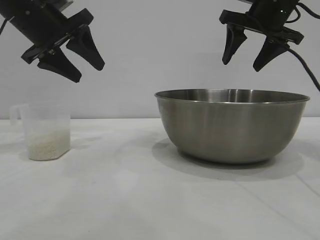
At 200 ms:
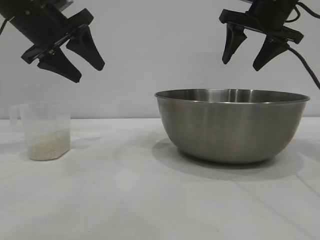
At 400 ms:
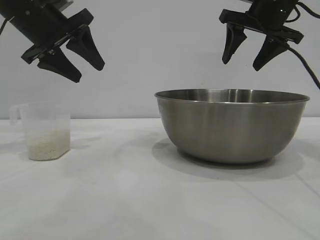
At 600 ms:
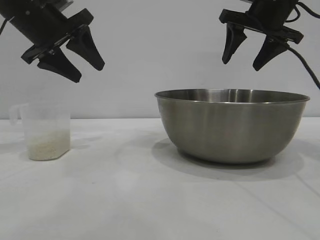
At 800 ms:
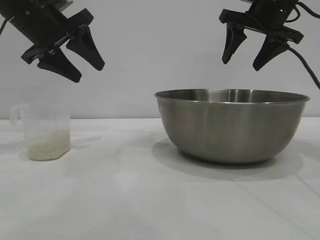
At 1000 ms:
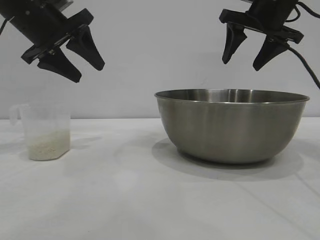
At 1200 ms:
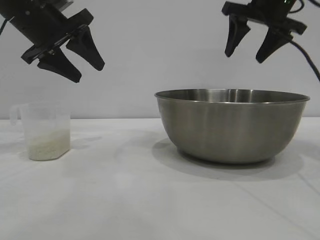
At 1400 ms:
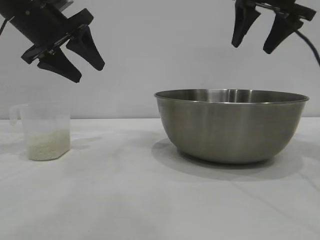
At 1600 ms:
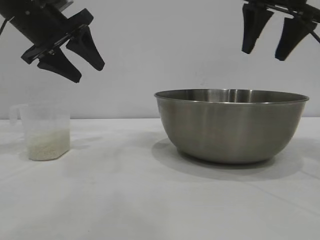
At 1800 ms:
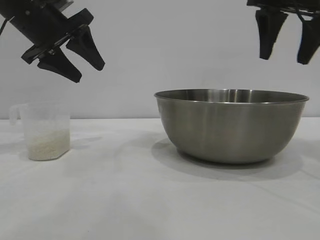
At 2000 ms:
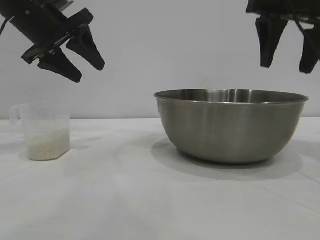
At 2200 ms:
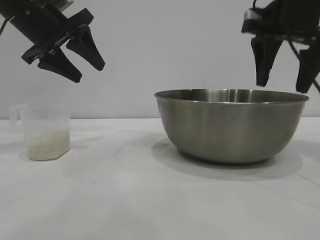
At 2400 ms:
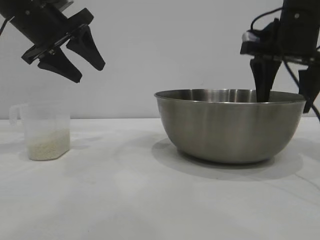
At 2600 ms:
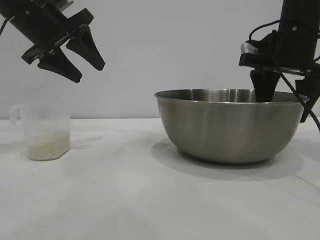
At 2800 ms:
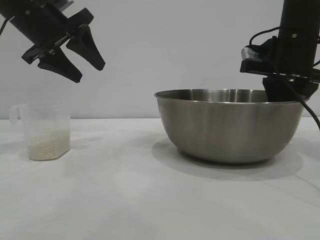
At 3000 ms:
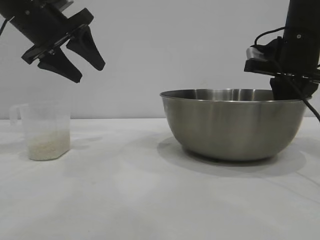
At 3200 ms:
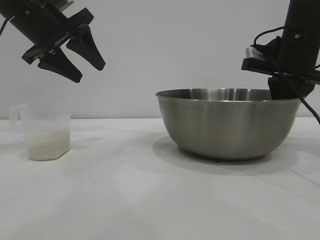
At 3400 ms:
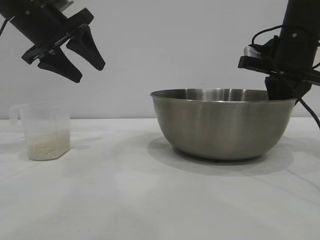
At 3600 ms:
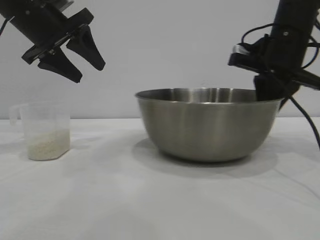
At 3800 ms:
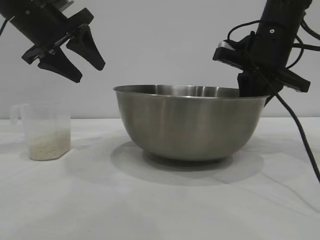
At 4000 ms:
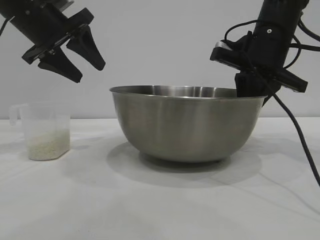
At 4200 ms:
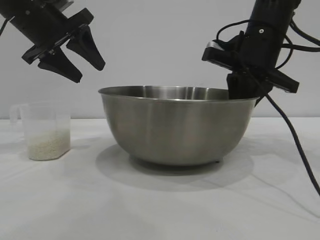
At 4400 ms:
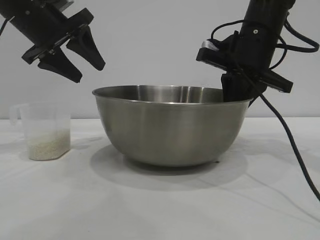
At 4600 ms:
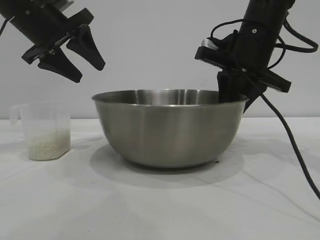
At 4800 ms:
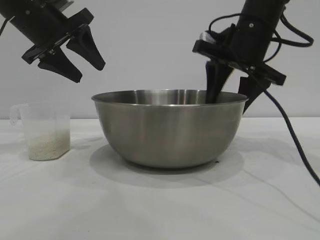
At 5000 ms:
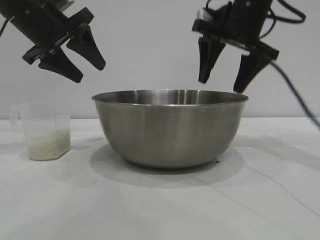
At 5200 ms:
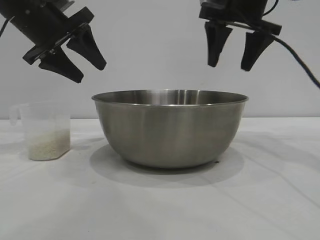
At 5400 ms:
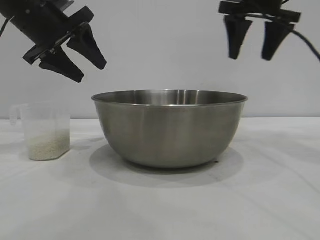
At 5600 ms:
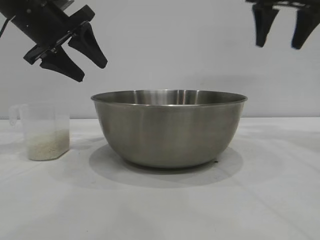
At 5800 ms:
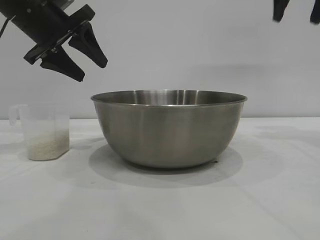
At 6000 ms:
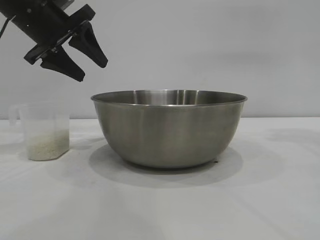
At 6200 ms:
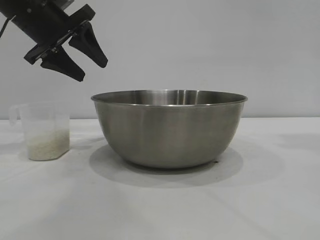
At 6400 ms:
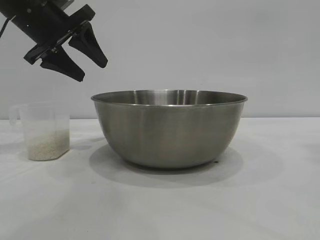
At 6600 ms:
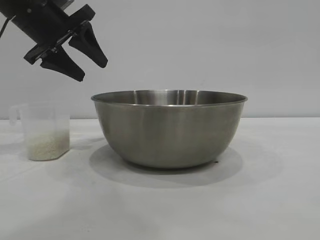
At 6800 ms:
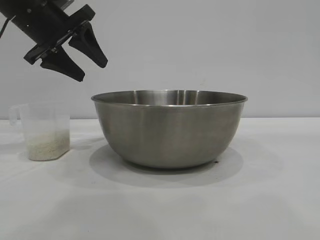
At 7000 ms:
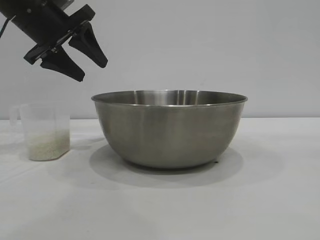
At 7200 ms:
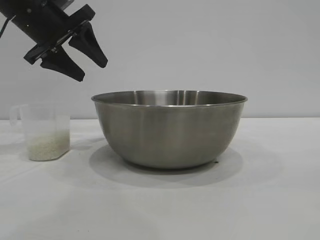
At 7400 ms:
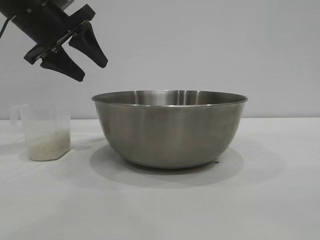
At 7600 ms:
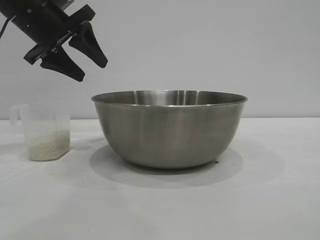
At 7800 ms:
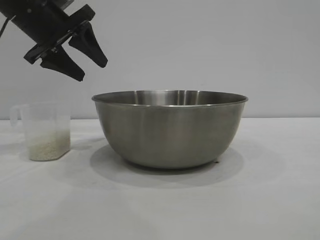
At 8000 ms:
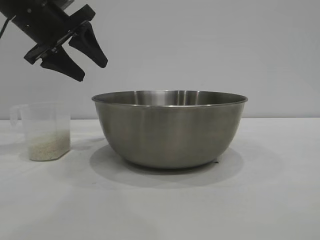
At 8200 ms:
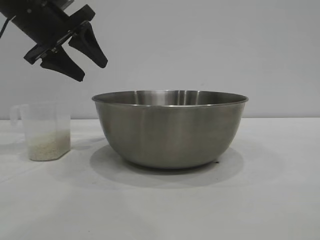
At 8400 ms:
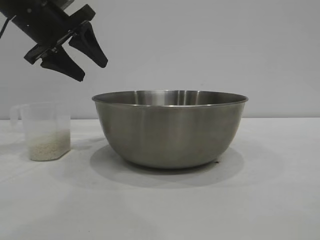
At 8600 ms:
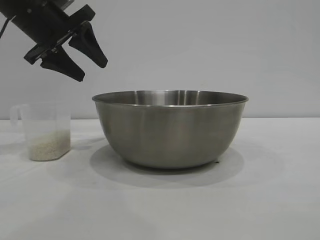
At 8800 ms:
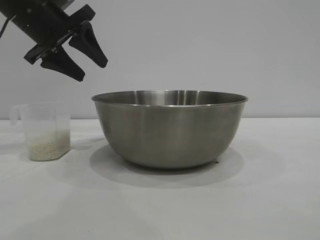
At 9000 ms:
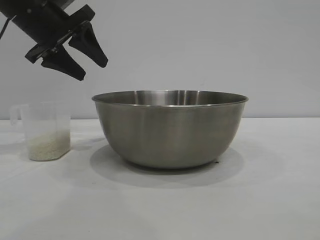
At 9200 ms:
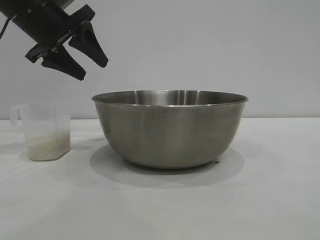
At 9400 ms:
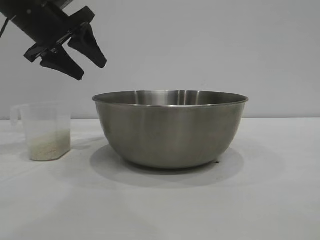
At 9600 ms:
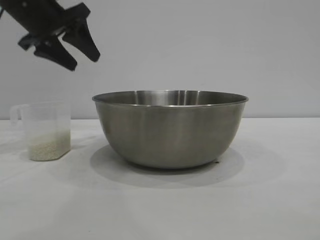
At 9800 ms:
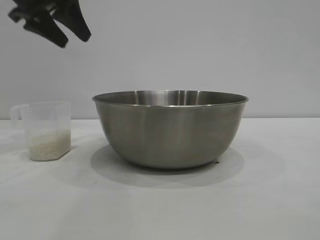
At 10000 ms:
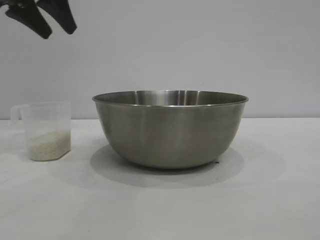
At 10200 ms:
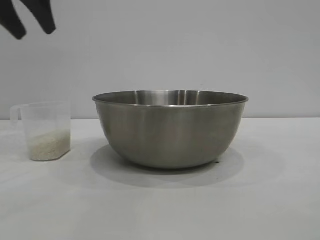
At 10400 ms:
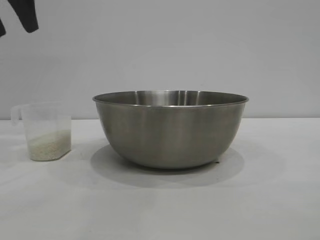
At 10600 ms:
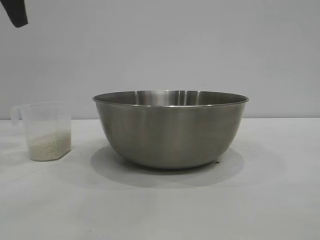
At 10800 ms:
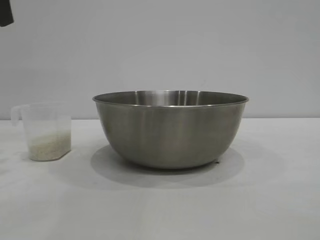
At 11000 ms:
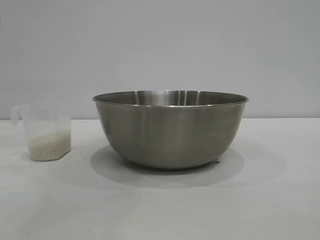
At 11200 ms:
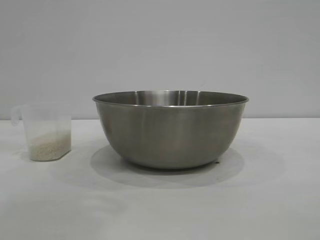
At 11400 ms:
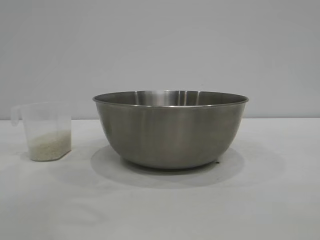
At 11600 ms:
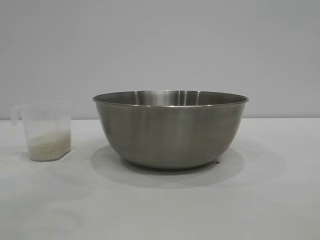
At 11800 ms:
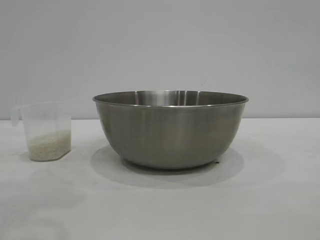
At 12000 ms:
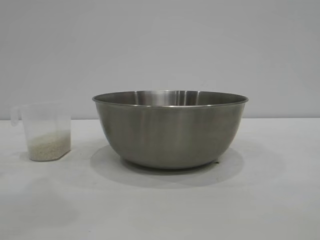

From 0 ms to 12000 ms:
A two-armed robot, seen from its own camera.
Task of the whole recording: the right gripper grasp the rice container and place it in the center of the table, the left gripper grasp the rice scoop and pour the rice into the rice container.
Step, from 0 ms to 4800 ms: Move the bowl to the center of view with the right gripper.

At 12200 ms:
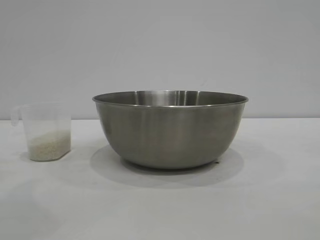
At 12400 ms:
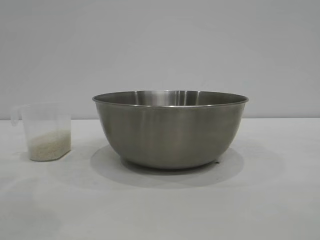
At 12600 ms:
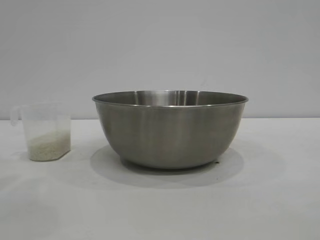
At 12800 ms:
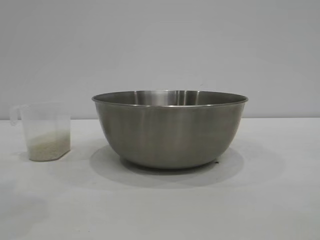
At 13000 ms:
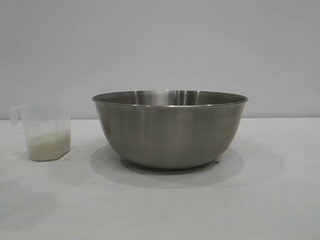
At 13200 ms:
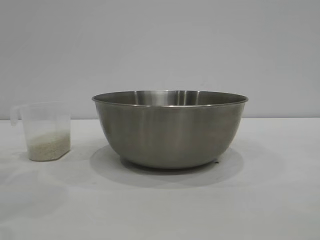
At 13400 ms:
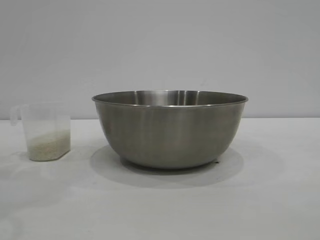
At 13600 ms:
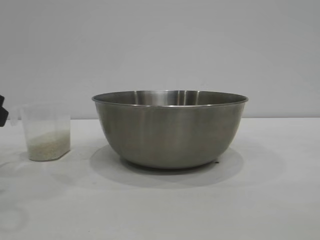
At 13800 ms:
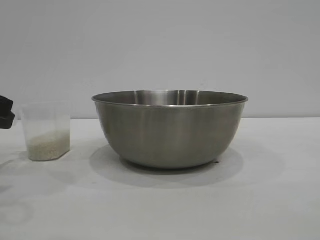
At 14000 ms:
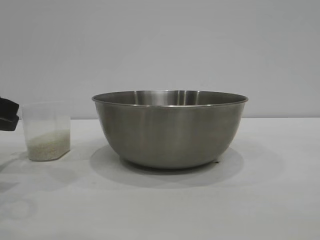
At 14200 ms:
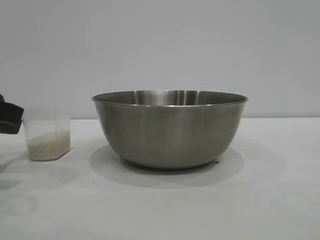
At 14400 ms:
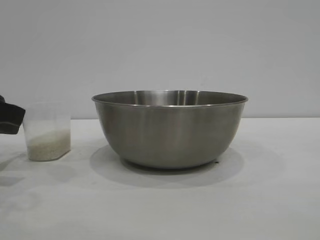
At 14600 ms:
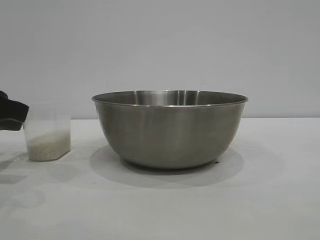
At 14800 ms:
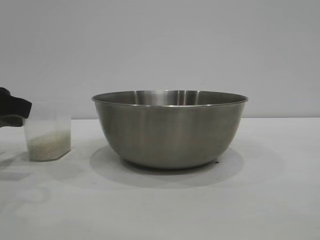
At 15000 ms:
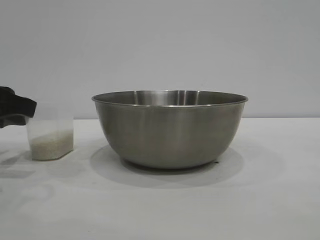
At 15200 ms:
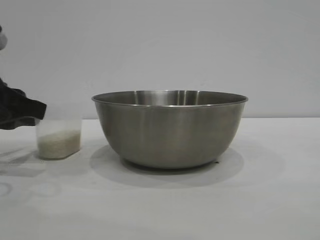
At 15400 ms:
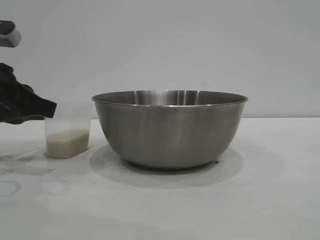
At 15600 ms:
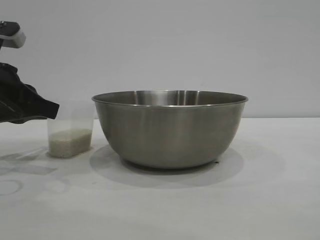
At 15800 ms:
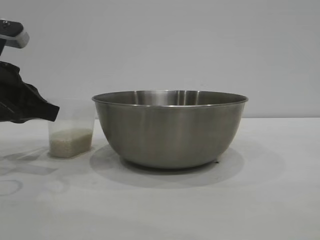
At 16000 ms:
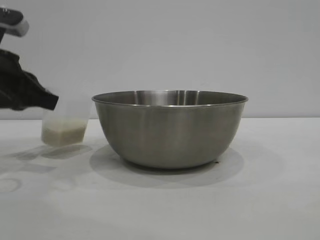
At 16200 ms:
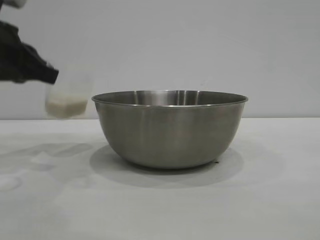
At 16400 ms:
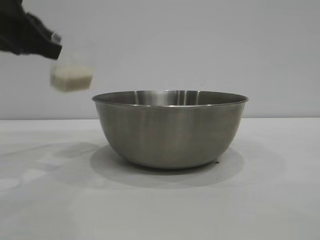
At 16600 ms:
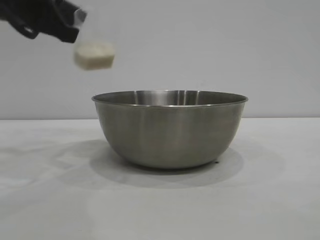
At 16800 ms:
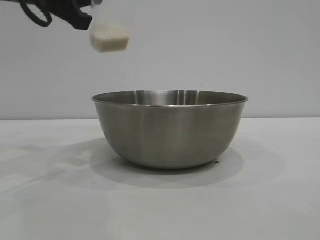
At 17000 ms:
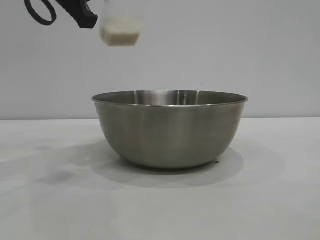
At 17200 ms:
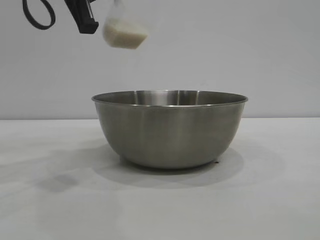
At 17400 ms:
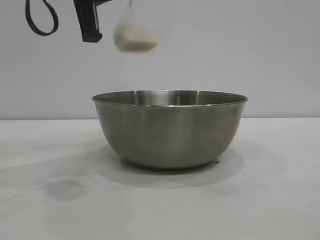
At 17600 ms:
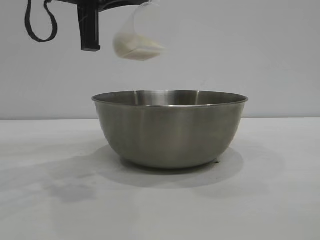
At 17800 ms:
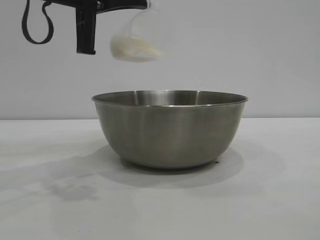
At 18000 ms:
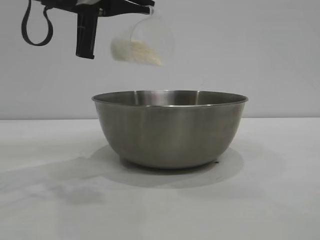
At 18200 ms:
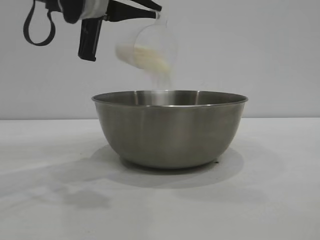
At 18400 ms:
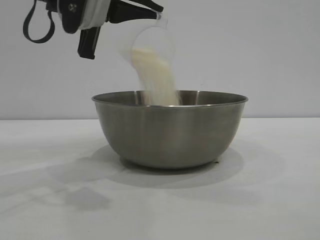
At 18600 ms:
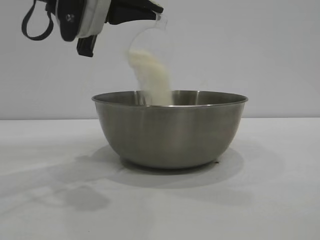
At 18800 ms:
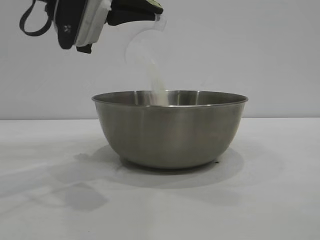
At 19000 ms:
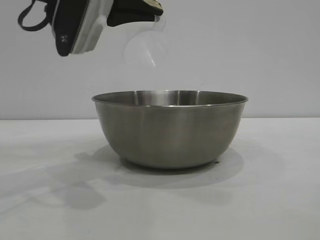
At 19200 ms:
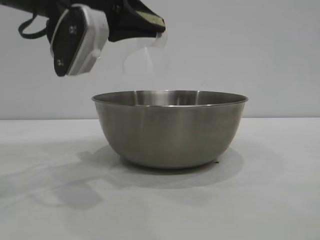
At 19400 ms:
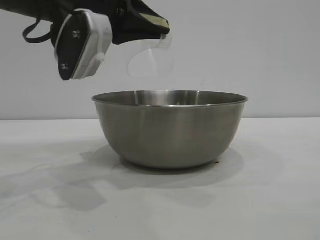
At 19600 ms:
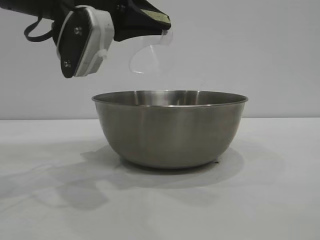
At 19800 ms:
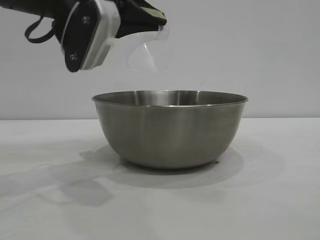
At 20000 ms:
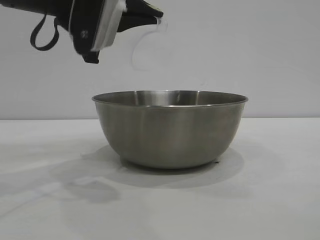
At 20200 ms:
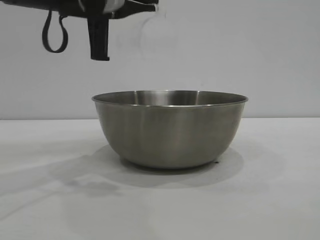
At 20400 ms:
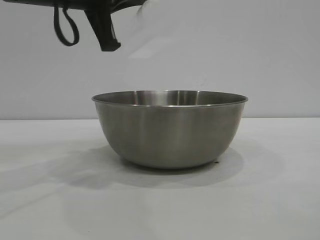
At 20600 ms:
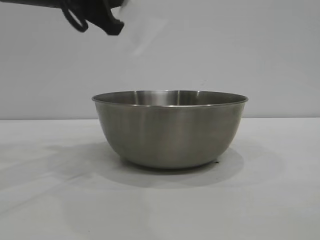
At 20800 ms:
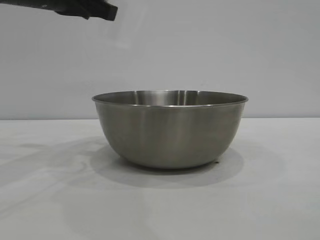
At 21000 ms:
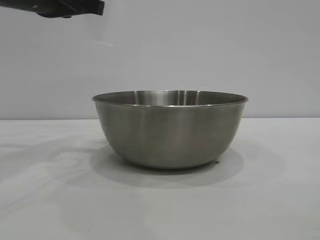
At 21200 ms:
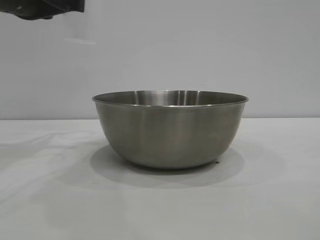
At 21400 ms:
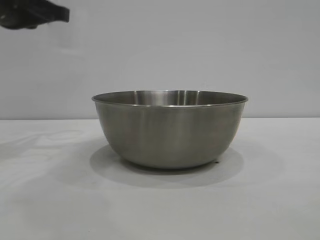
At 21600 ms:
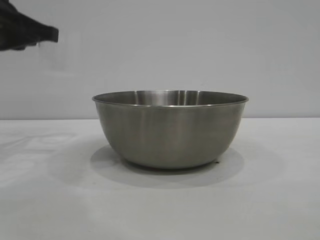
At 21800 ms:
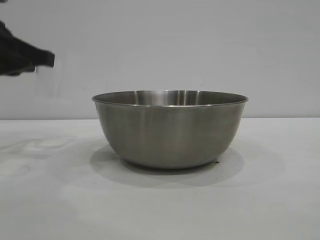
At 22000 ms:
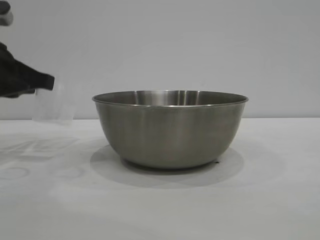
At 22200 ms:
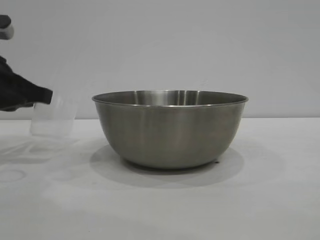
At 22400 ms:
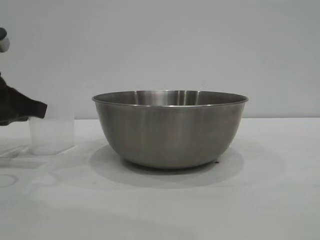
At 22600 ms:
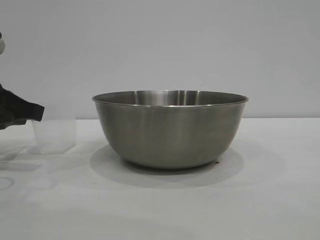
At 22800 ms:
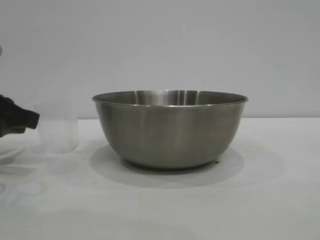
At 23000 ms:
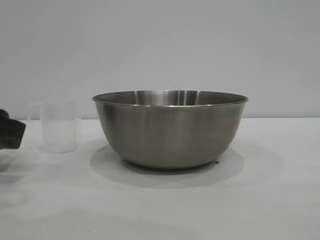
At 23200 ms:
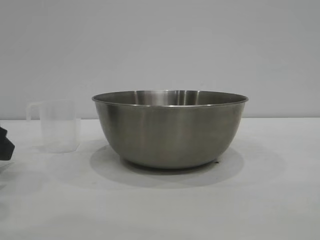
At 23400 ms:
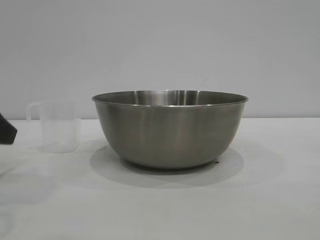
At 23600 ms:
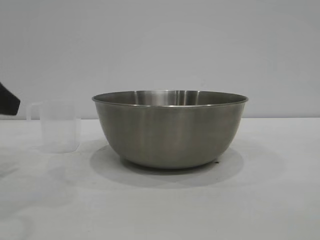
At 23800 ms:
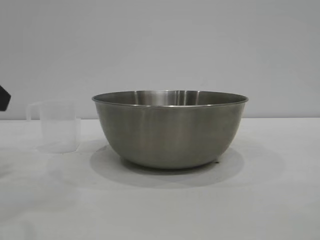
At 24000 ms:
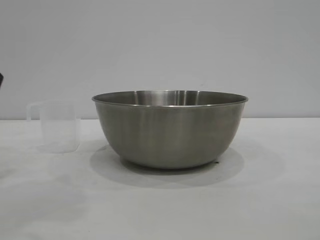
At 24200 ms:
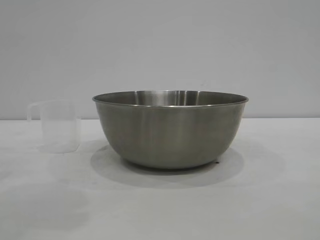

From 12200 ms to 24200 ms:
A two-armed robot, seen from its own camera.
Task of the whole recording: the right gripper grasp the rice container and place it in the center of the table, the left gripper grasp the rice scoop and pour the rice into the rice container.
Step, from 12200 ms to 16200 ms: Pick up the cup with rice in it with the left gripper.
Step, from 16400 ms to 20200 ms: Pour the rice from the cup into the bowl with the left gripper.
Step, from 20600 ms to 22800 ms: Place the cup on the table with the left gripper.
